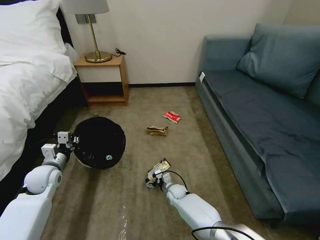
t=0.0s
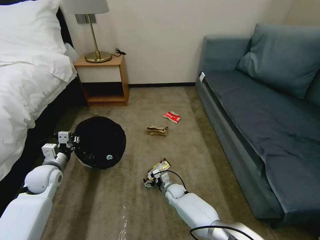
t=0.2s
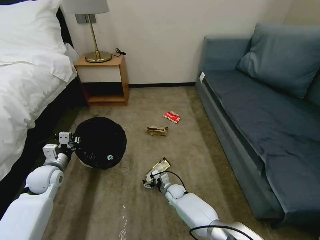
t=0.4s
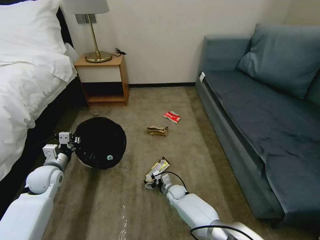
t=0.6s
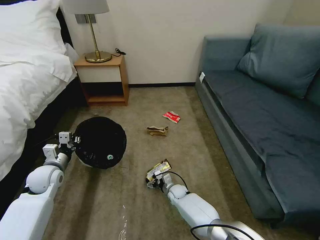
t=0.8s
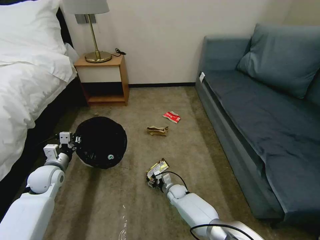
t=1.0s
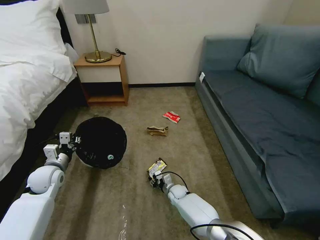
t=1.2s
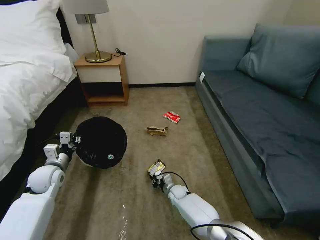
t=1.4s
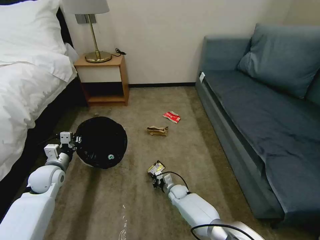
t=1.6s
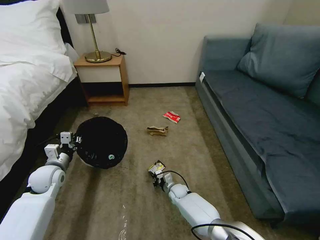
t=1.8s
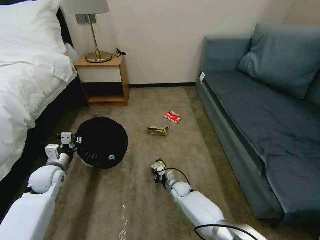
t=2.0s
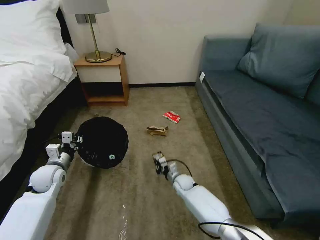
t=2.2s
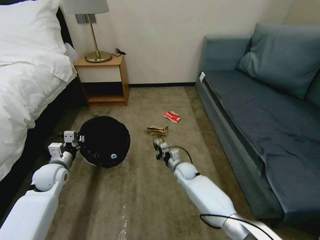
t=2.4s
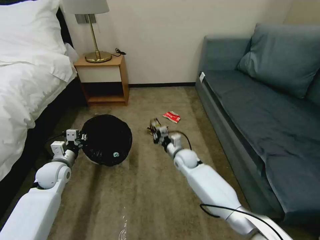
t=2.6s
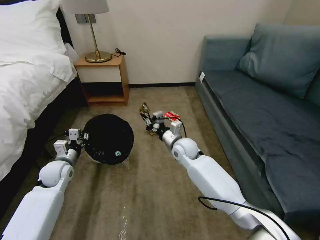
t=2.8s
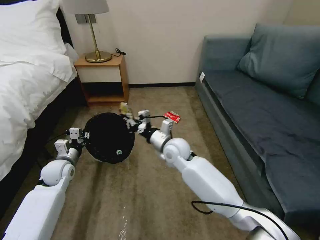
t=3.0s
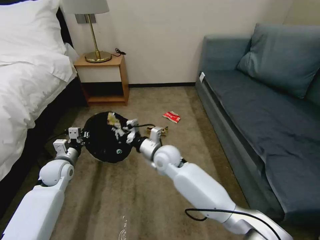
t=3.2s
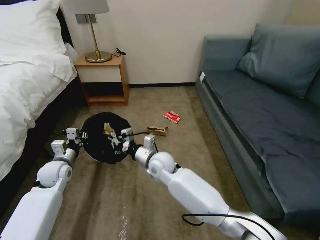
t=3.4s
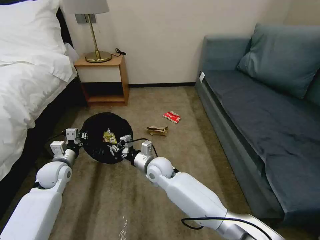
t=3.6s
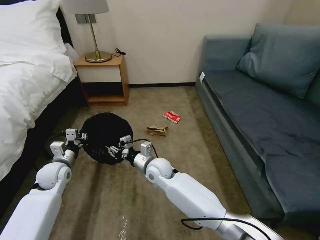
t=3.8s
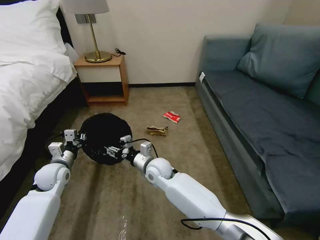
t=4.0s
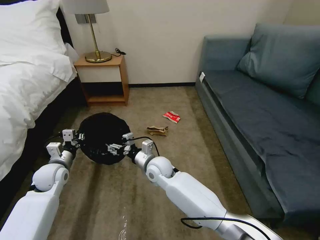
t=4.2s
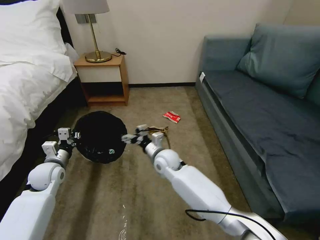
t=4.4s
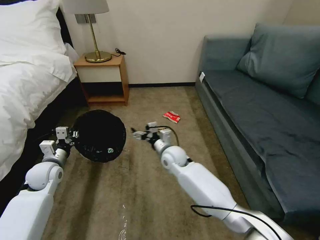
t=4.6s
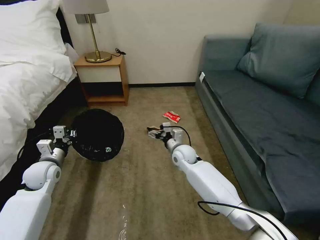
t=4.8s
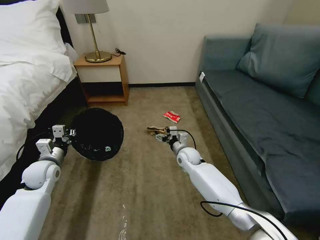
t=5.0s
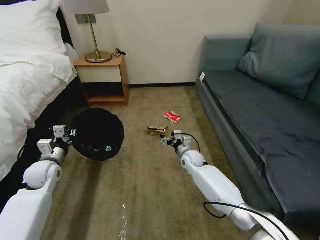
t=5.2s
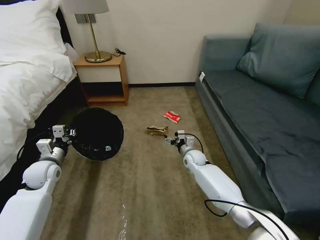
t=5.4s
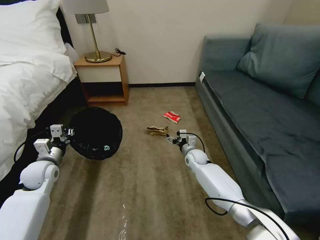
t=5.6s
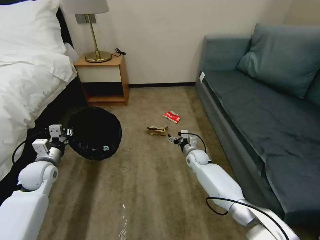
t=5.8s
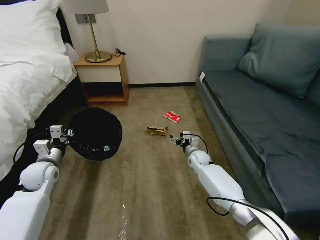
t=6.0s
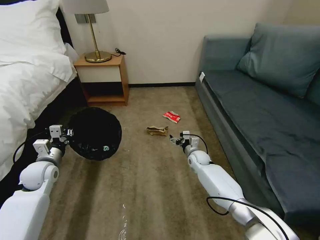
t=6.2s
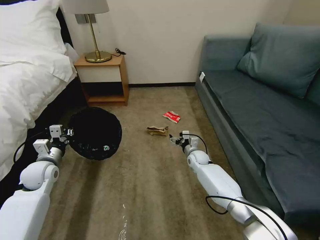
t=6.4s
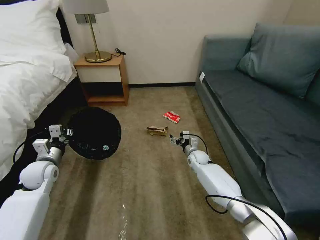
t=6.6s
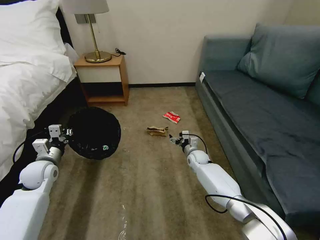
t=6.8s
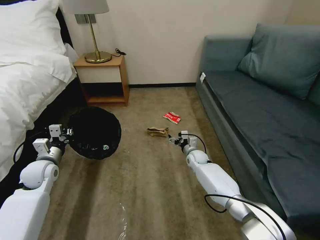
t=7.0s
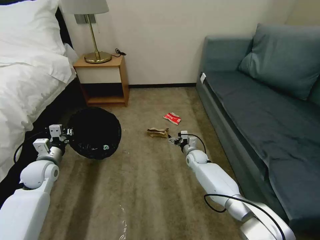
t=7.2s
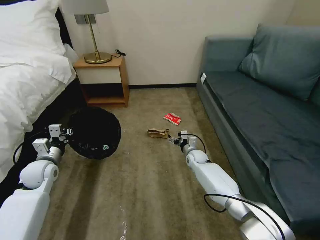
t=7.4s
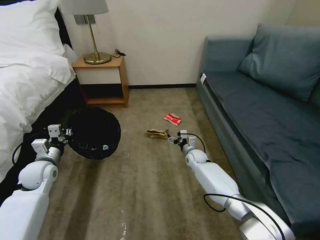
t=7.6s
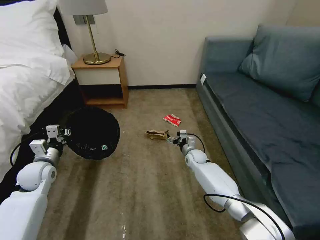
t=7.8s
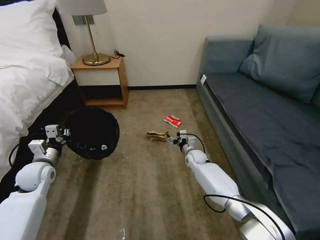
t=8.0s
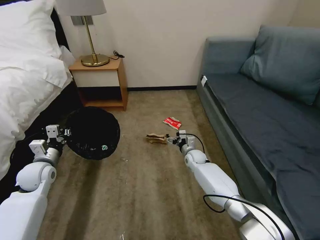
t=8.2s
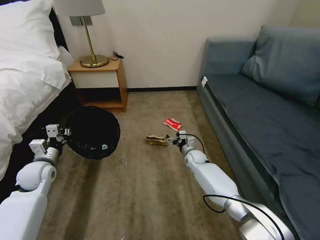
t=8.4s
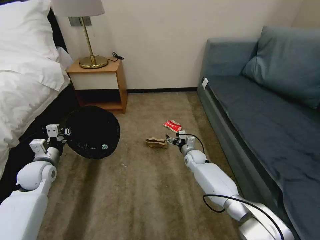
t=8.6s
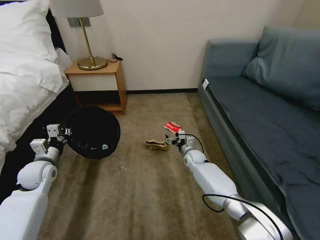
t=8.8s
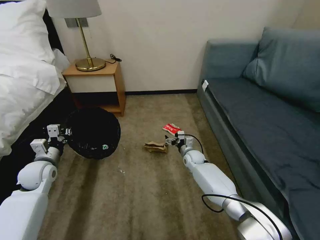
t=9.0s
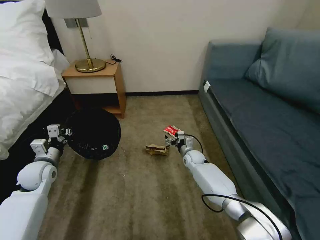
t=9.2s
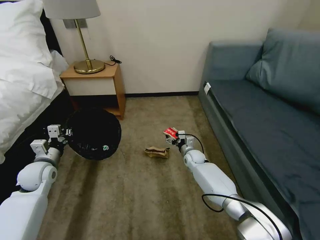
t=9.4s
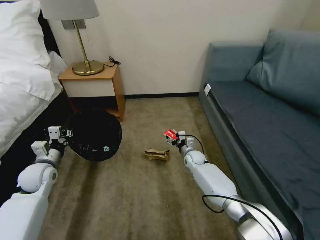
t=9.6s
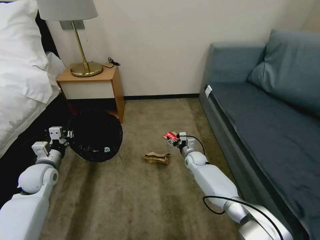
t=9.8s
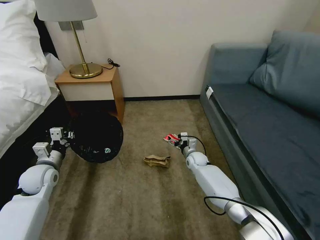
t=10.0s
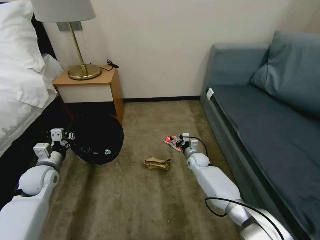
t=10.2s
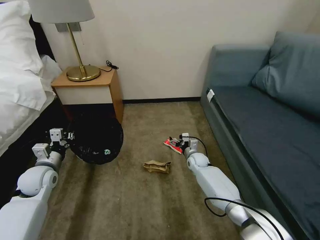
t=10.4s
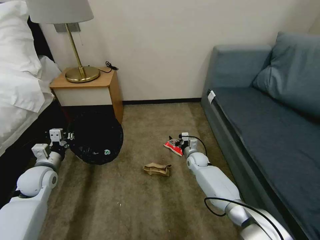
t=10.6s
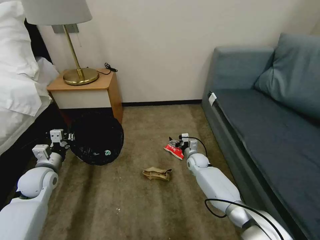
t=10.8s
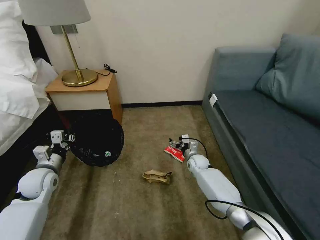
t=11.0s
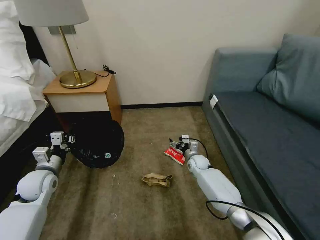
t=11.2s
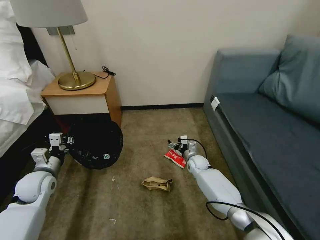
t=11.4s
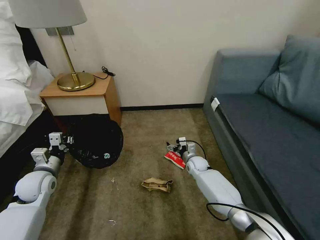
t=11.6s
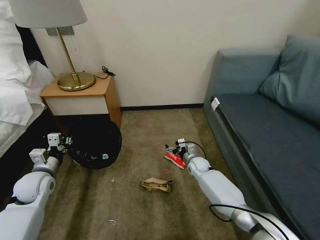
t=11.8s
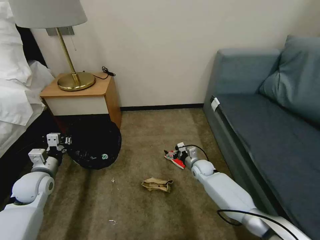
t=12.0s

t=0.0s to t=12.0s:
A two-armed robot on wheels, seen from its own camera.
Task of the whole recording: Pick up the trash bin, then pick up the garbage on the floor and place it into the trash bin.
t=0.0s to t=1.6s: The right gripper closes up.
t=1.6s to t=3.0s: The right gripper heads upward, covering approximately 30 cm.
t=3.0s to t=4.4s: The right gripper goes approximately 5 cm downward, and opens up.
t=4.4s to t=6.0s: The right gripper is displaced to the right, downward and forward by some 20 cm.
t=6.0s to t=7.6s: The grippers stay close to where they were, moving slightly.
t=7.6s to t=9.0s: Both grippers stay about where they are.

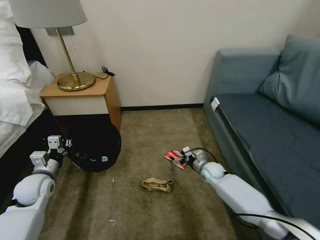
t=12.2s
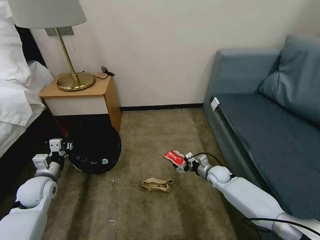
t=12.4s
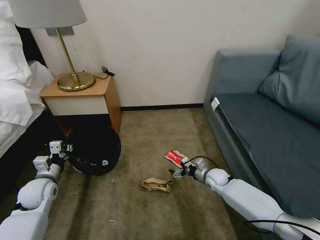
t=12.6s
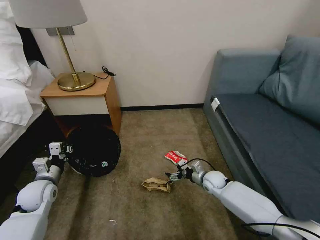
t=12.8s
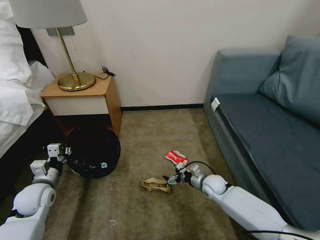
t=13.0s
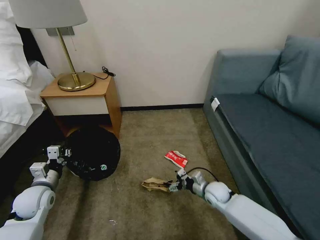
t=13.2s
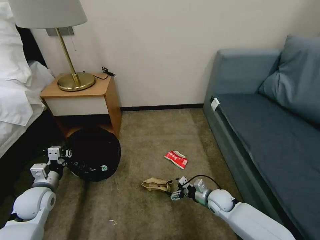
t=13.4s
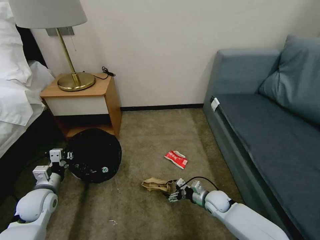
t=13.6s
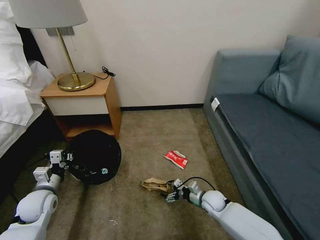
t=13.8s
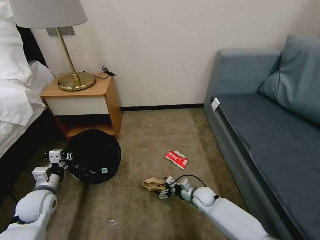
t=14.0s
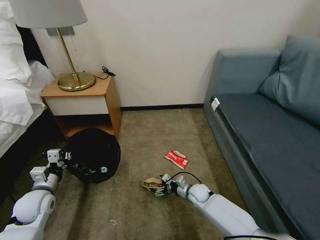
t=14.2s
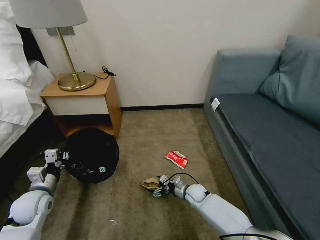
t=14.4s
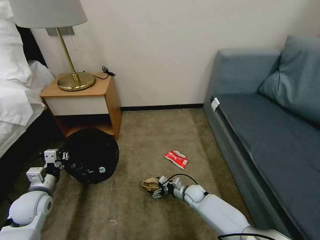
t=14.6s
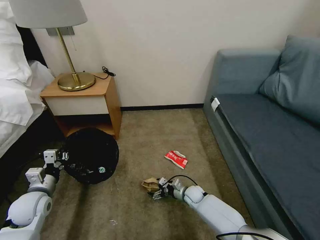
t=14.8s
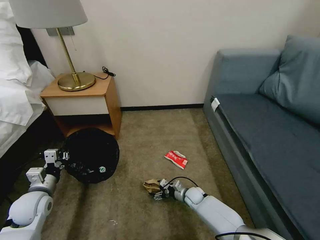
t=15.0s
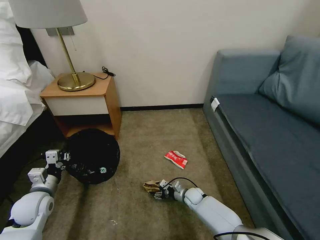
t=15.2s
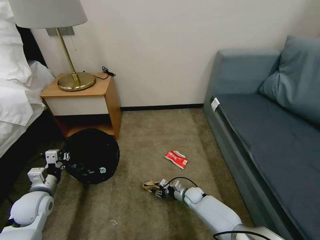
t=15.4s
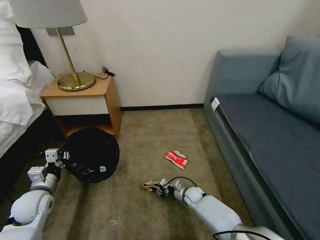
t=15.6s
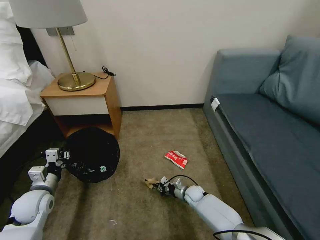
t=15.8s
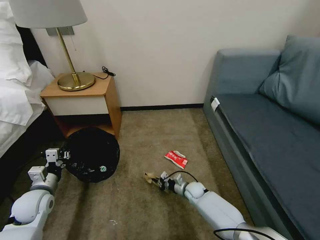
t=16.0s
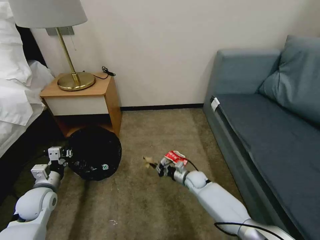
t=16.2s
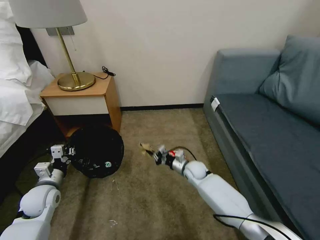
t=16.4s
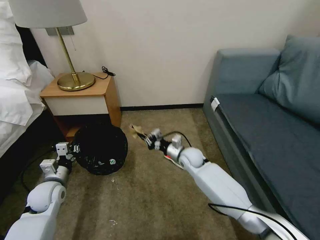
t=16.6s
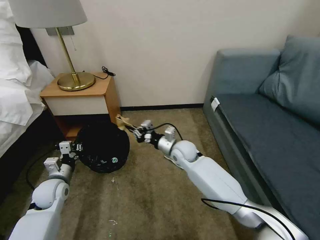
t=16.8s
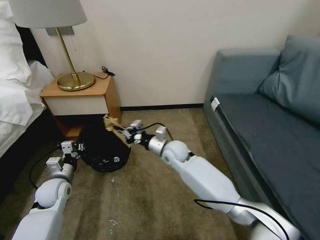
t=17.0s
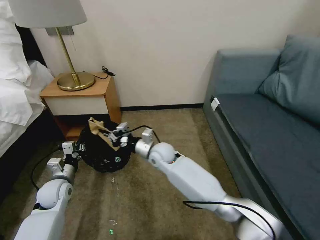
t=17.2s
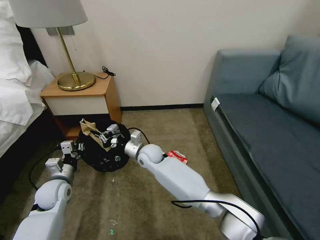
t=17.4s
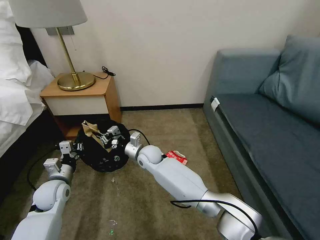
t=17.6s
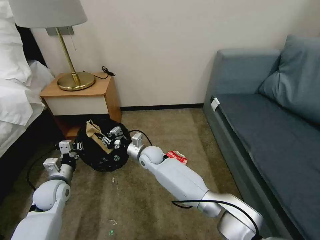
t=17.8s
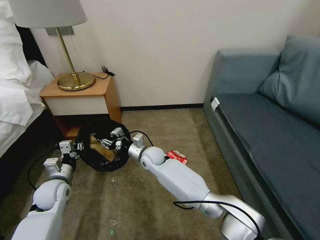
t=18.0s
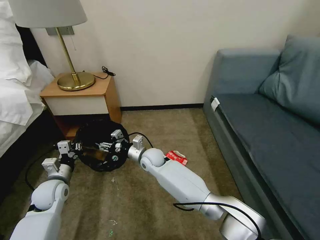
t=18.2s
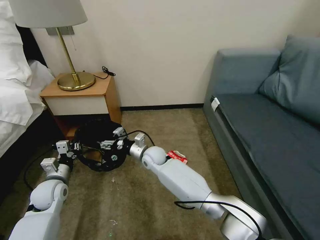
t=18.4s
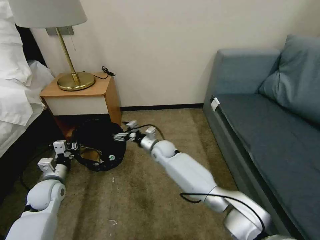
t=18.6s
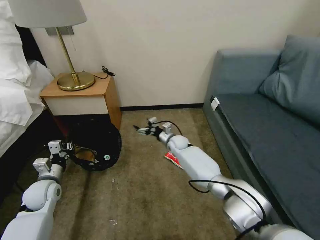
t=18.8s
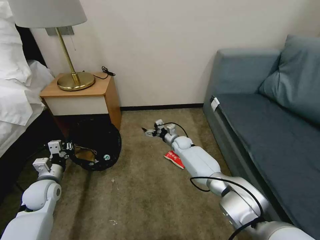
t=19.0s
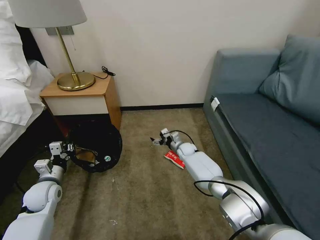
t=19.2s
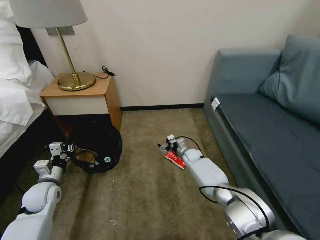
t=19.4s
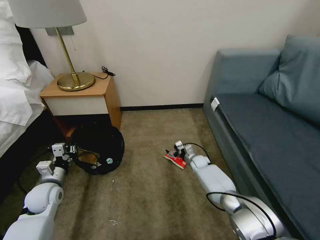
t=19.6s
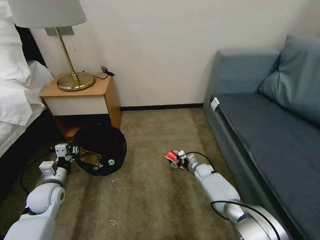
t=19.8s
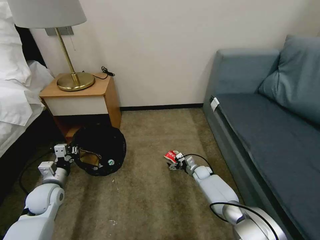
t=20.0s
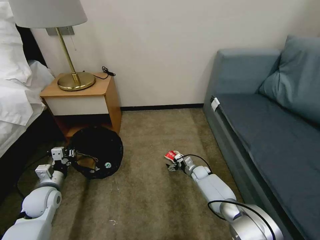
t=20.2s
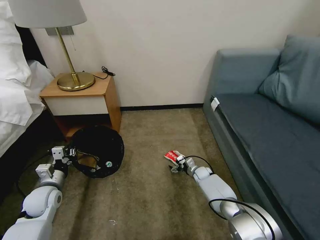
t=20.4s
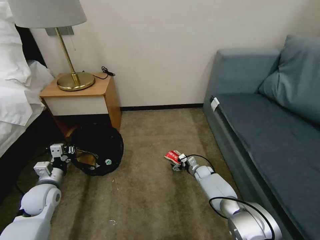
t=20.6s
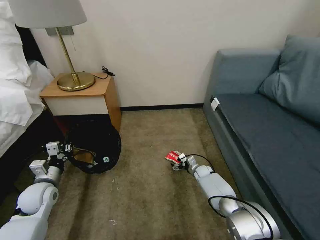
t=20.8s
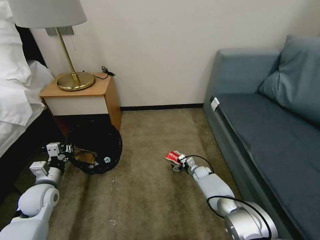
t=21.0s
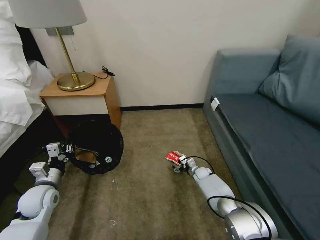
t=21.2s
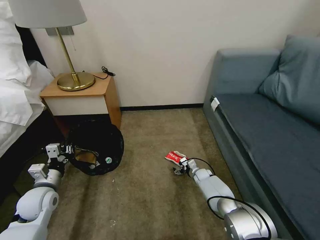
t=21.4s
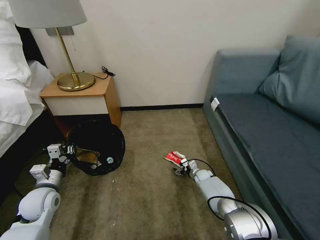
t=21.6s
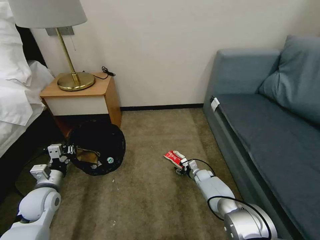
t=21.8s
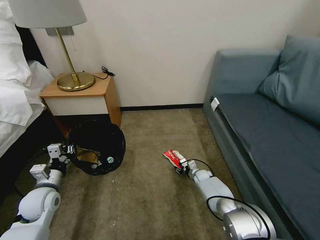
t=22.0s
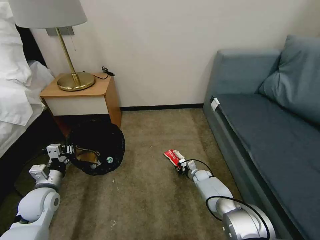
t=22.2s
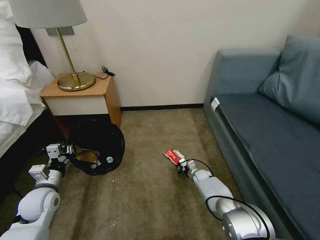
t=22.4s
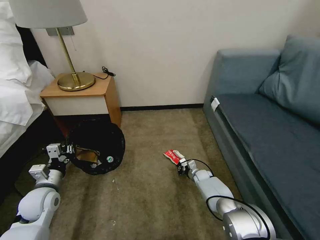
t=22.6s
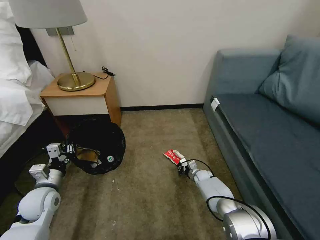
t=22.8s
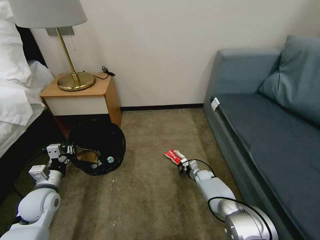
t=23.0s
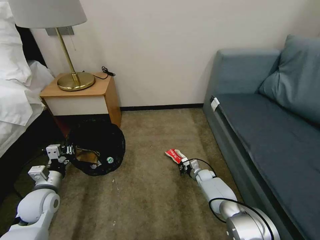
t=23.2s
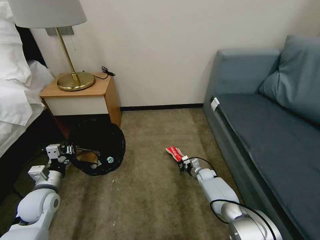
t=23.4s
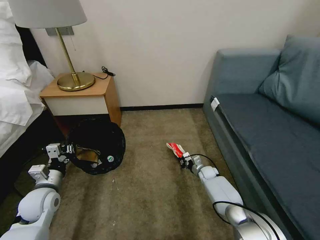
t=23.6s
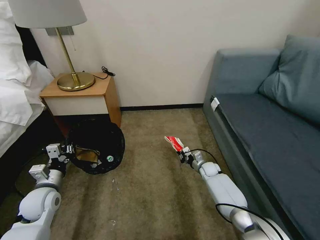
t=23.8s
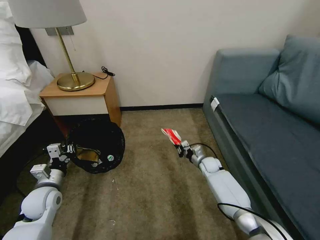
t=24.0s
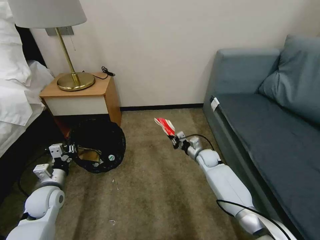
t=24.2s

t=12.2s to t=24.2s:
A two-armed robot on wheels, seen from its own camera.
Task of the whole recording: Pick up the trash bin, then pick up the garbage on the floor and place it into the trash bin.
t=12.2s to t=13.8s: The left gripper moves about 5 cm; the right gripper is displaced backward by approximately 10 cm.
t=13.8s to t=15.2s: The right gripper is displaced downward and to the left by about 10 cm.
t=15.2s to t=16.6s: The right gripper moves upward, roughly 20 cm, and closes its fingers.
t=16.6s to t=18.2s: The right gripper heads to the left, covering approximately 15 cm, and opens up.
t=18.2s to t=19.8s: The right gripper is displaced to the right and downward by about 30 cm, and opens its fingers.
t=19.8s to t=21.2s: The grippers stay close to where they were, moving slightly.
t=21.2s to t=22.6s: The right gripper closes.
t=22.6s to t=24.2s: The right gripper travels upward by roughly 15 cm.
